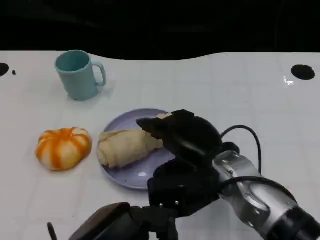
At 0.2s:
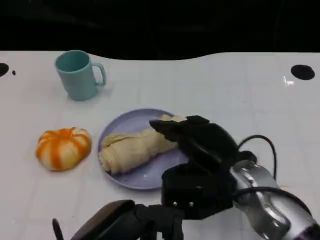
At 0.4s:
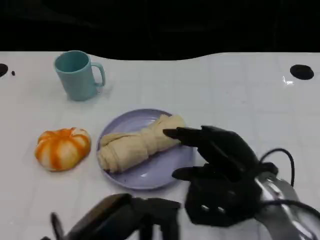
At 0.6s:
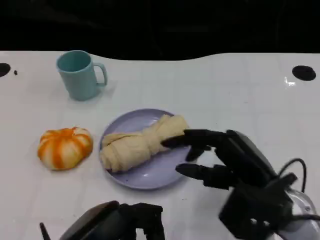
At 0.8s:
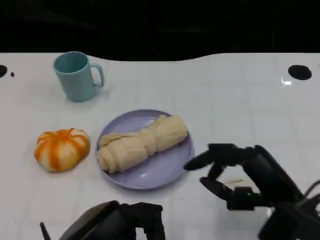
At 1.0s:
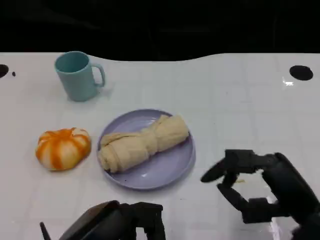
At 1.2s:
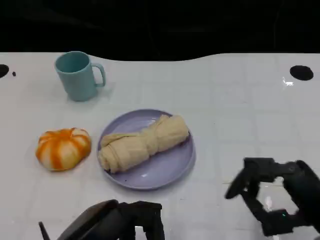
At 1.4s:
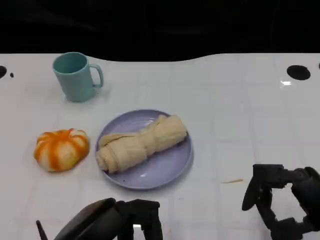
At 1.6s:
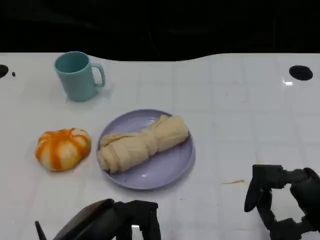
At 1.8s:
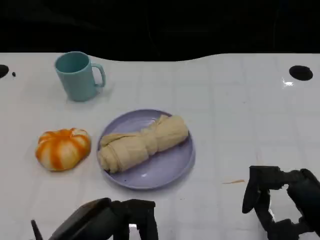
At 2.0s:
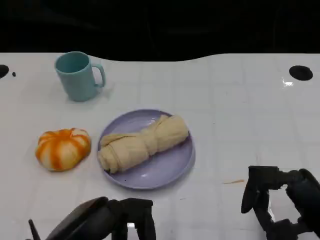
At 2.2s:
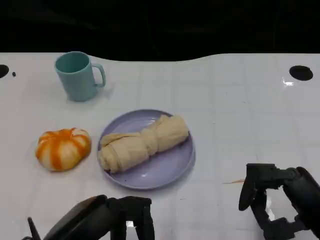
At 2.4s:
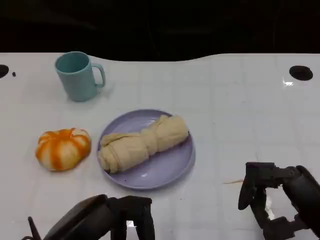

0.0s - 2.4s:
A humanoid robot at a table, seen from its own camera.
Task of the whole recording: Grasp the towel on the left side of the plate with the left hand and place it into the plate.
0.0s - 1.2s: The right hand goes roughly 20 cm to the right and backward.
1.2s - 2.4s: The two hands keep their place.

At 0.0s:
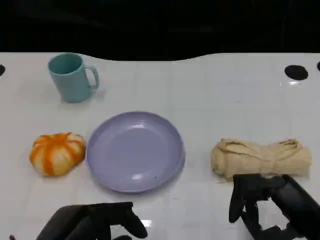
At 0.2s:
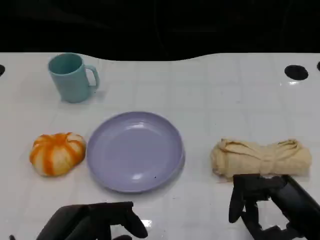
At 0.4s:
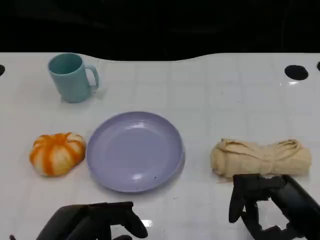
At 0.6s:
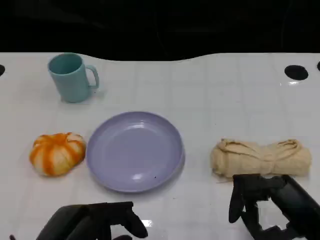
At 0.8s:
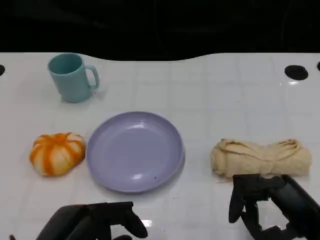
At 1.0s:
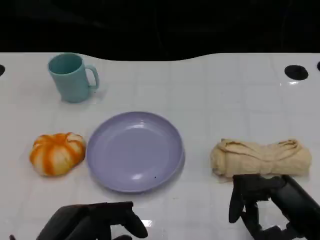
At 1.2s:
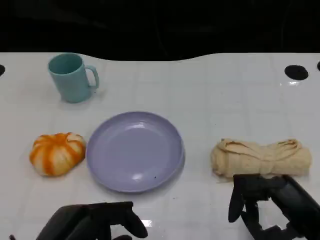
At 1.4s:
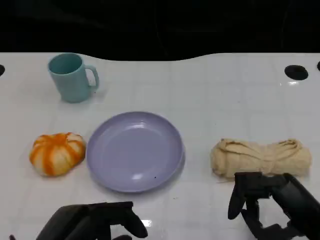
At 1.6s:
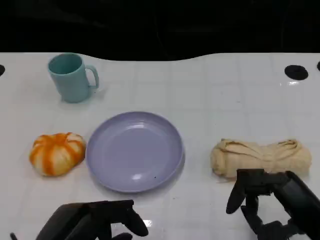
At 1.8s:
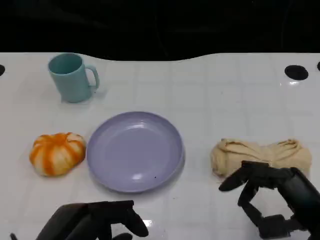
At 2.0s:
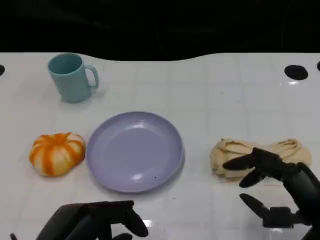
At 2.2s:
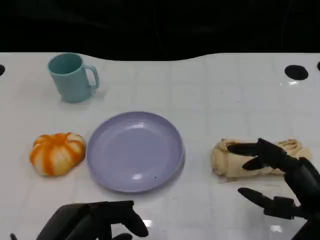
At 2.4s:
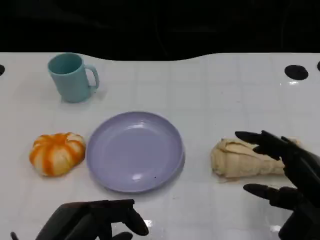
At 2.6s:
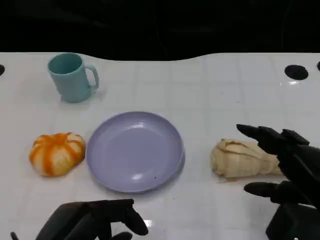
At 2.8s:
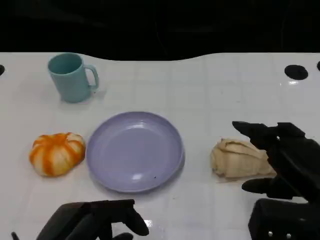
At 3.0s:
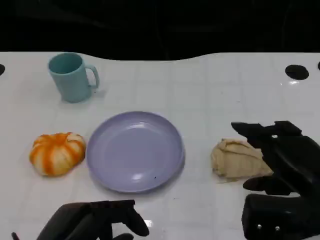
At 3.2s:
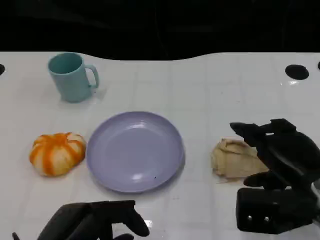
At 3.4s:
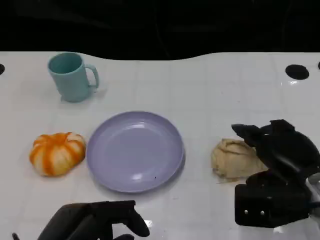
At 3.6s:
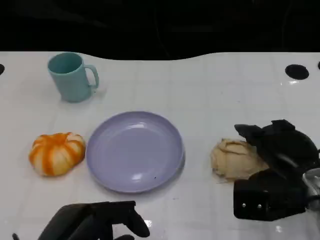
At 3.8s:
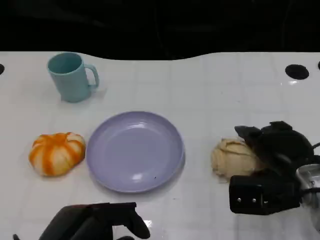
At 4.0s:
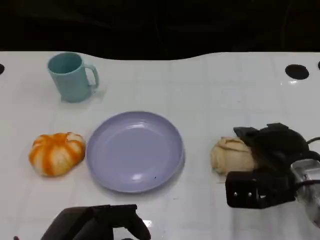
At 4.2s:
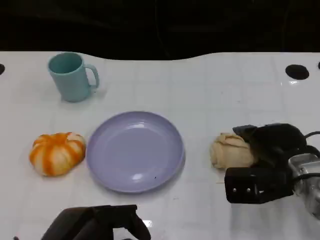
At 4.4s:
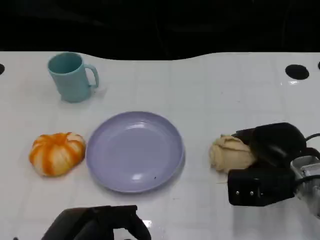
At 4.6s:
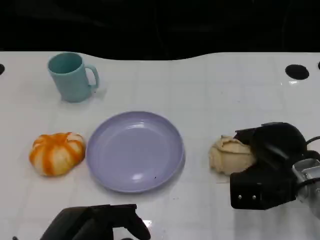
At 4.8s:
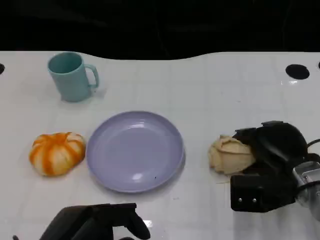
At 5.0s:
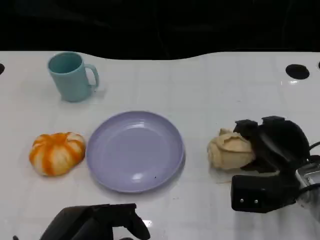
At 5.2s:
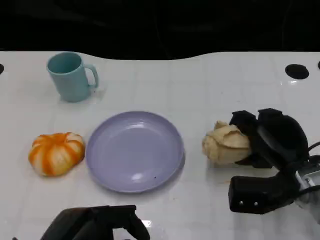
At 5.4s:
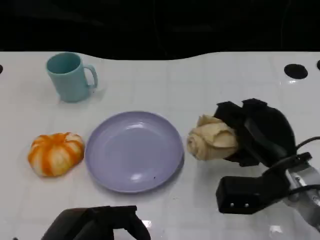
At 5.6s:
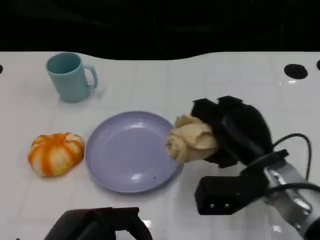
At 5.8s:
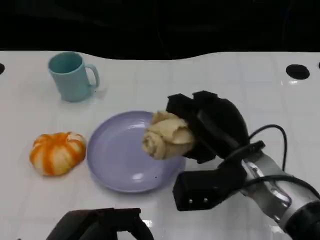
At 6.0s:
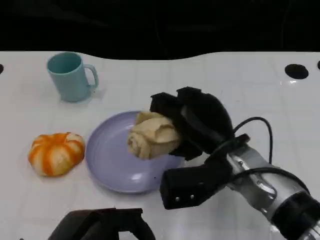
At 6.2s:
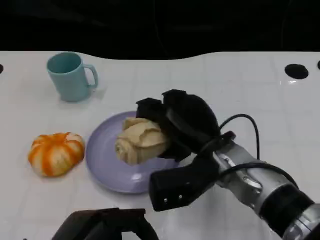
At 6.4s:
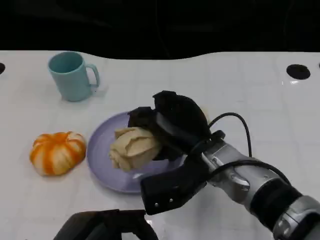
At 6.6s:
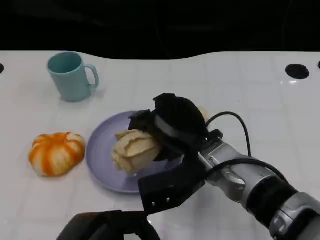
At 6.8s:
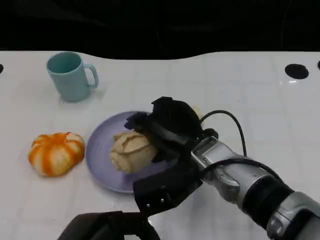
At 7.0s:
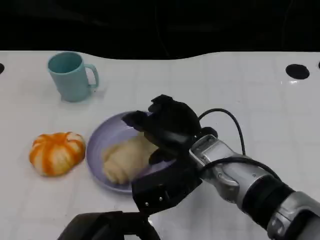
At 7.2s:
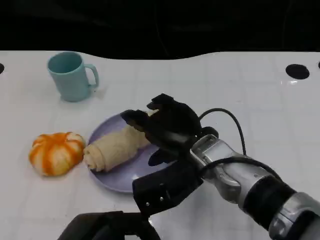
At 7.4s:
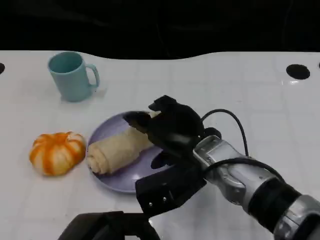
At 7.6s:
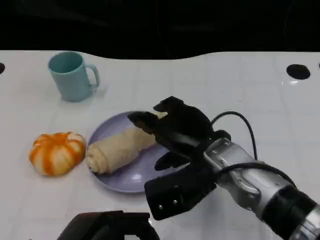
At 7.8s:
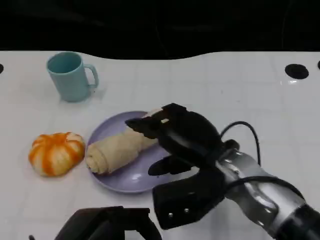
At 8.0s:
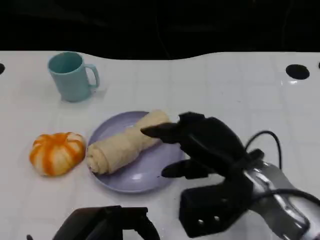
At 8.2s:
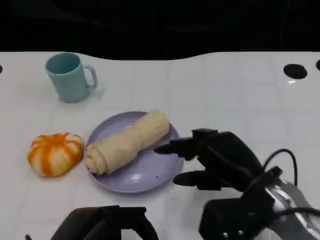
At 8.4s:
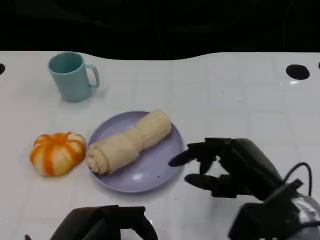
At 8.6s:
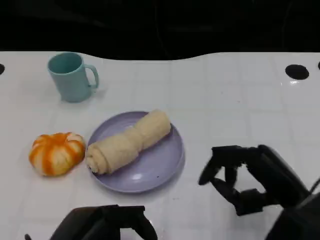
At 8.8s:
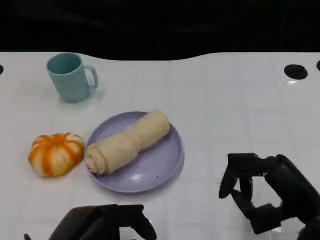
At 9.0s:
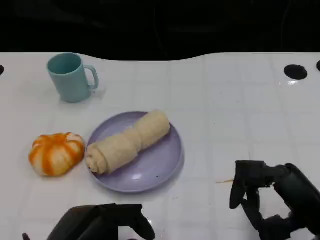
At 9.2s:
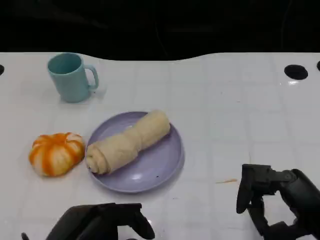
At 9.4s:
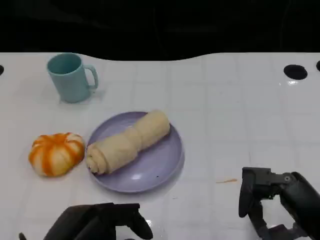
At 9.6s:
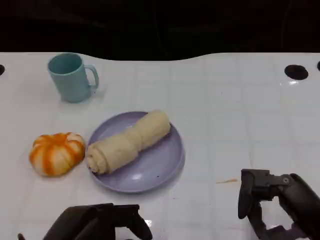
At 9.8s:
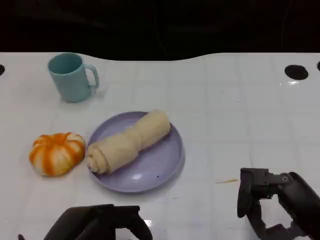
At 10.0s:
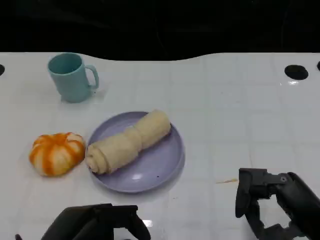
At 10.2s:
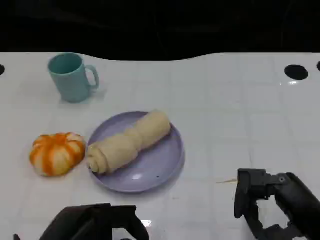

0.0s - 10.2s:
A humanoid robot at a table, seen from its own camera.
Task of the whole recording: Grasp the towel on the left side of the plate with the left hand and place it into the plate.
0.0s - 1.4s: Both hands stay put.
1.4s - 3.0s: The right hand shifts roughly 5 cm forward.
3.0s - 4.4s: The right hand shifts roughly 10 cm forward and downward.
4.4s - 5.8s: The right hand shifts roughly 10 cm to the left.
5.8s - 7.2s: The right hand is displaced to the left by approximately 5 cm.
7.2s - 8.8s: The right hand heads to the right and backward, covering some 20 cm.
8.8s - 10.2s: The hands make only small movements.

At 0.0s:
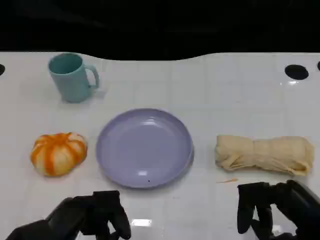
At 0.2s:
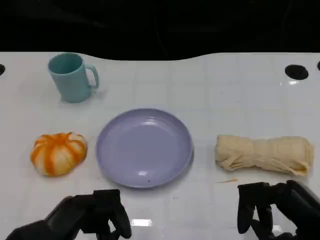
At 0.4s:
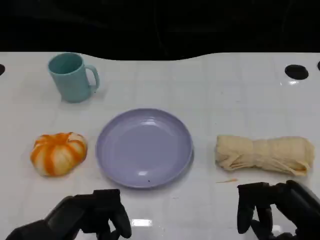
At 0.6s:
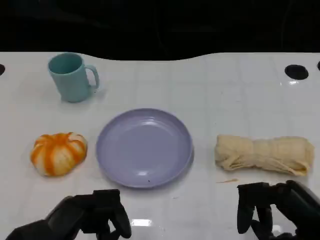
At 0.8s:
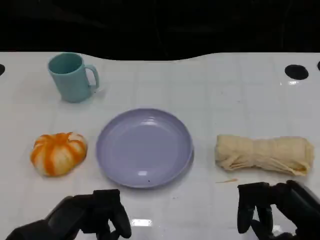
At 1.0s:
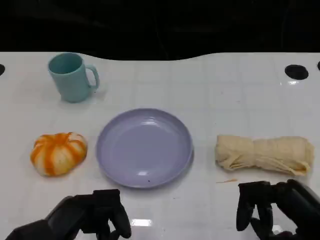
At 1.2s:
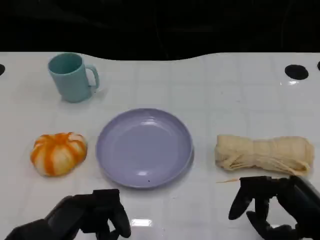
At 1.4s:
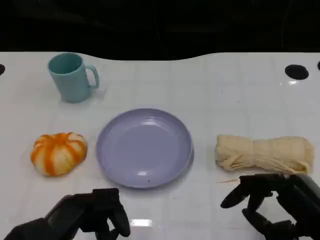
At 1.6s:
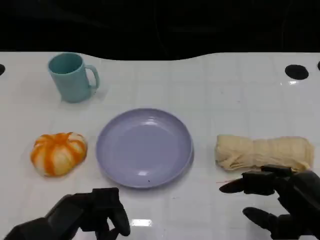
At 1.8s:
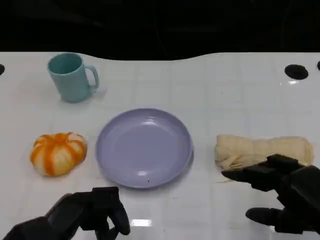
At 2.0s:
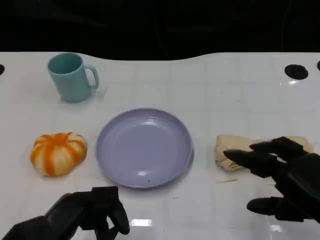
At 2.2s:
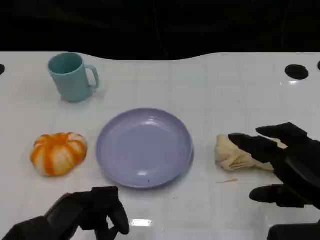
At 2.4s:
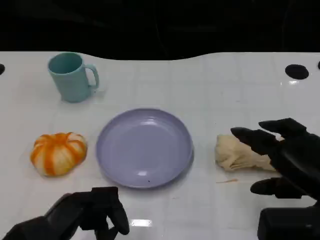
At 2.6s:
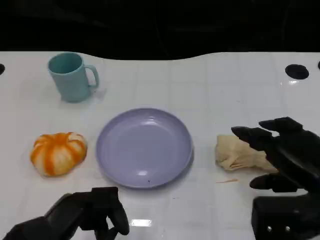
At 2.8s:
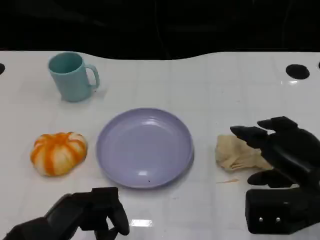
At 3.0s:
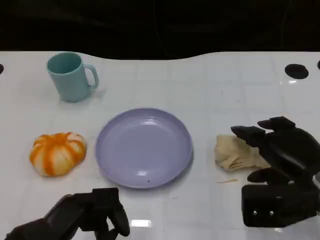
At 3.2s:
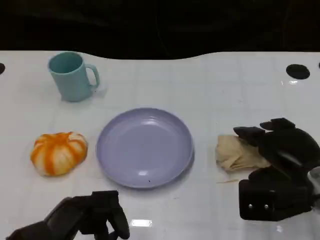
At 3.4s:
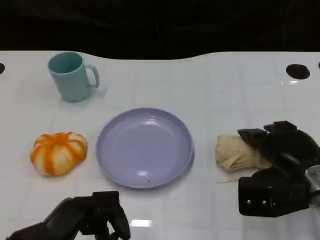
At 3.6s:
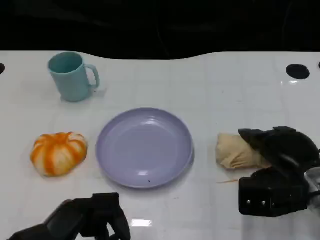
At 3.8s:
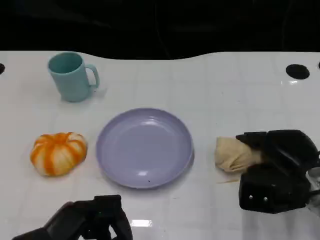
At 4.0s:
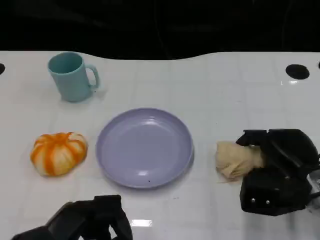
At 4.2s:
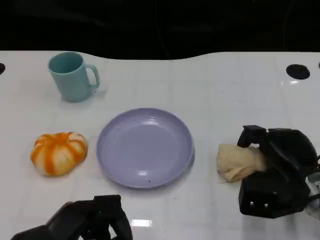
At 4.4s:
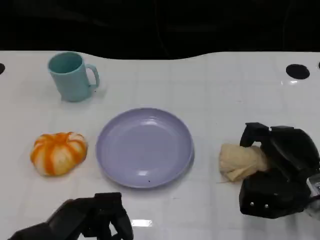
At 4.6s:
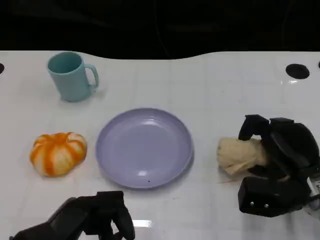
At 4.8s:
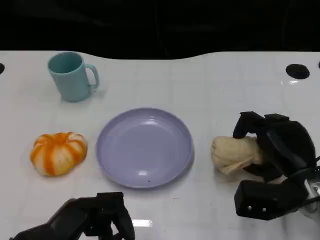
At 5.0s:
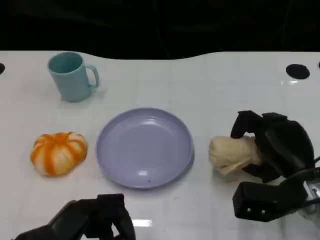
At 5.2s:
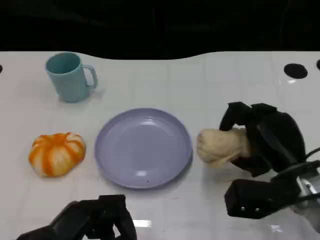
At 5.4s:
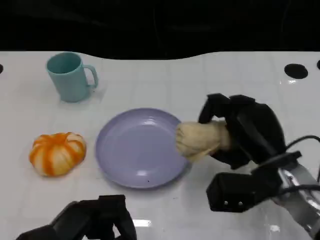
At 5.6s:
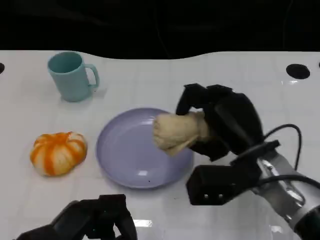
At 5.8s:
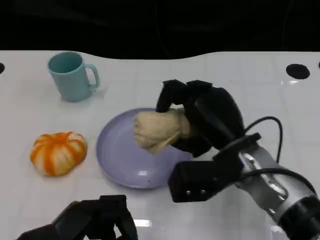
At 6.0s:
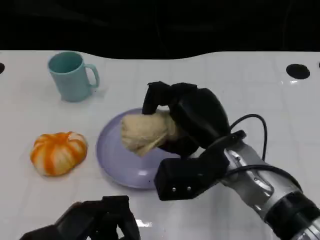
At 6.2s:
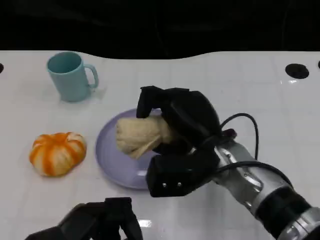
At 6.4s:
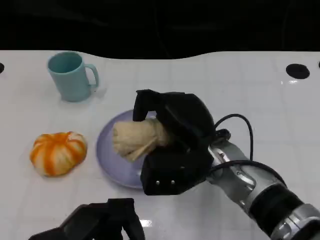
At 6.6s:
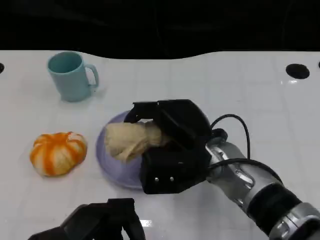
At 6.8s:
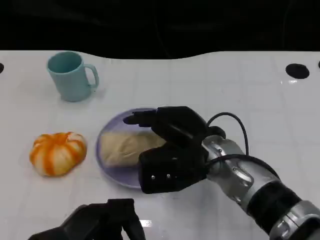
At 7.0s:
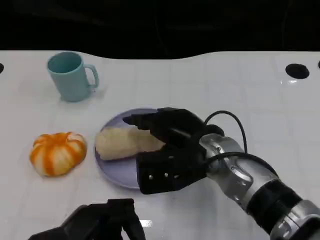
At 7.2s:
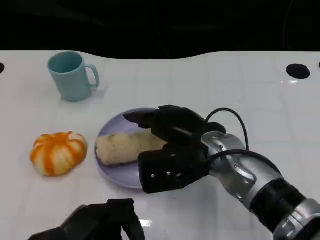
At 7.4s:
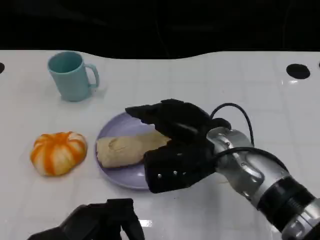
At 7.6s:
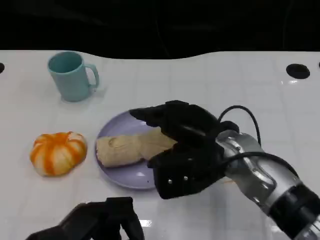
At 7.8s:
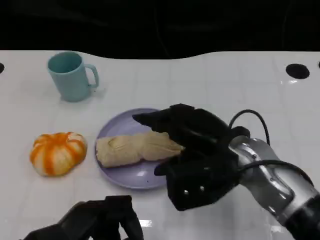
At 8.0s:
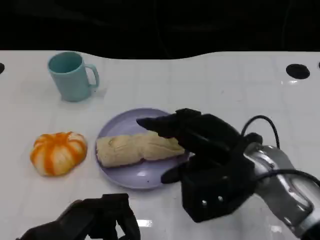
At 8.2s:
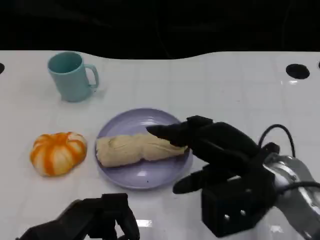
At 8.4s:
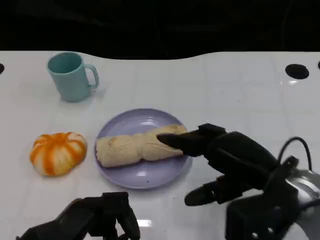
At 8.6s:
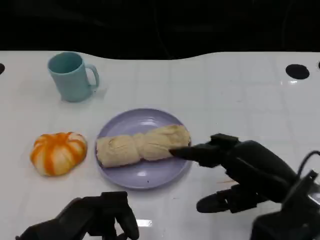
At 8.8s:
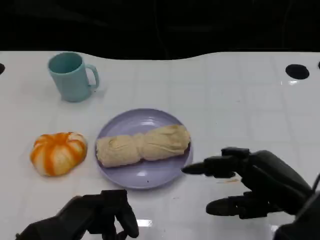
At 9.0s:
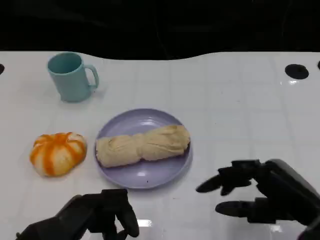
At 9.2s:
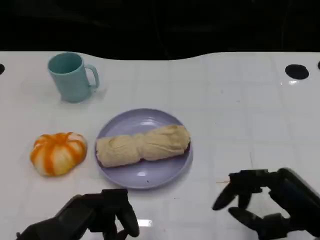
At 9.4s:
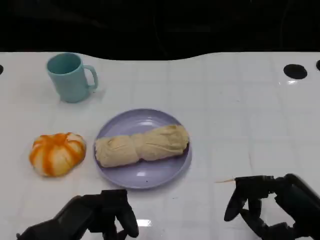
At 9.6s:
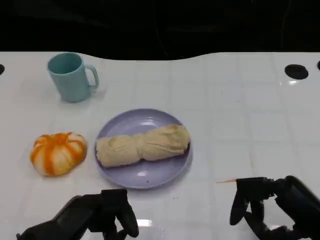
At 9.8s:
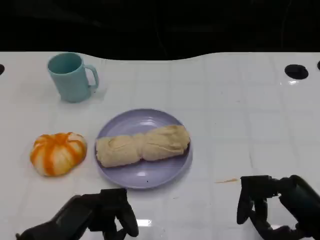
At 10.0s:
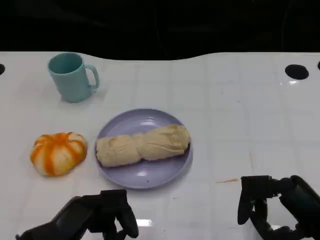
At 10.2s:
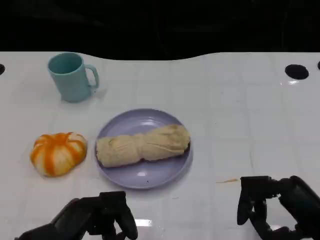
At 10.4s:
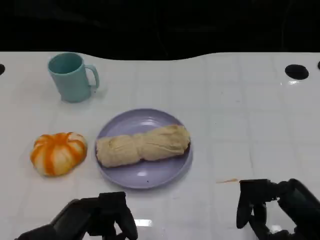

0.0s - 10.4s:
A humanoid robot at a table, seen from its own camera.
Task of the whole recording: Grasp the towel on the left side of the plate with the left hand and place it into the plate.
0.0s - 1.4s: The hands move only a little.
1.4s - 3.0s: The right hand goes about 10 cm forward.
3.0s - 4.4s: The right hand is displaced downward by roughly 5 cm.
4.4s - 6.0s: The right hand is displaced to the left and upward by roughly 15 cm.
7.4s - 9.0s: The right hand heads to the right and backward, covering some 20 cm.
9.0s - 10.4s: The hands stay close to where they were, moving slightly.
